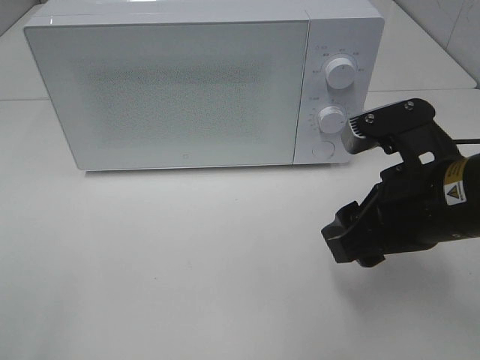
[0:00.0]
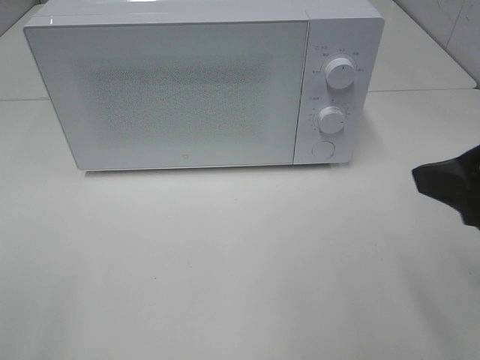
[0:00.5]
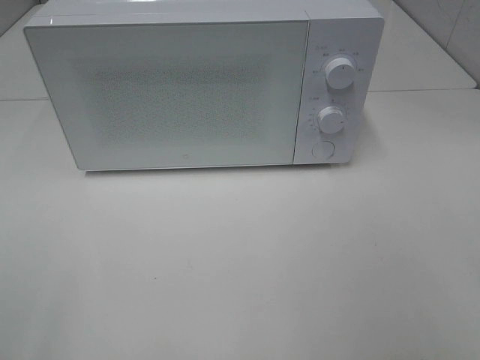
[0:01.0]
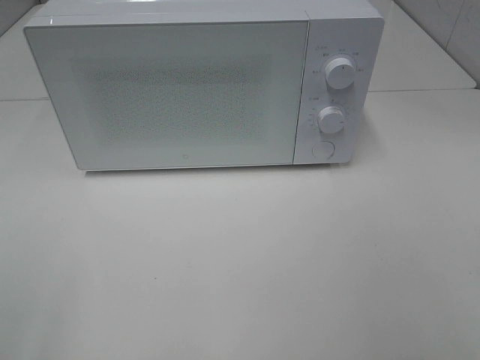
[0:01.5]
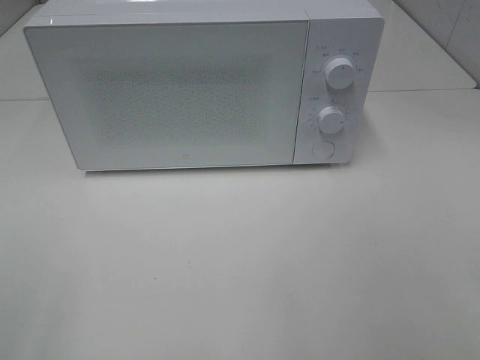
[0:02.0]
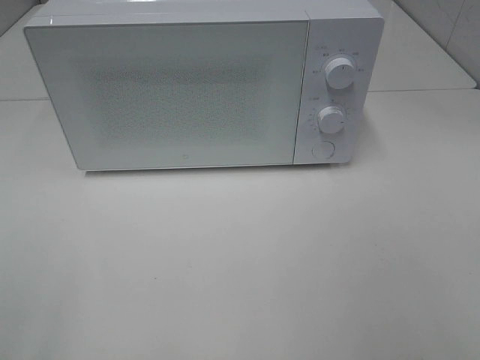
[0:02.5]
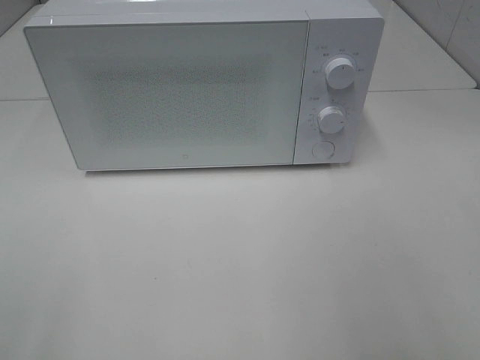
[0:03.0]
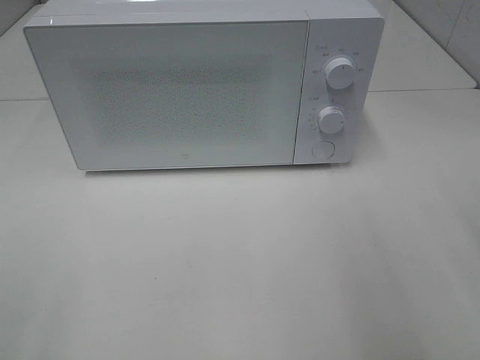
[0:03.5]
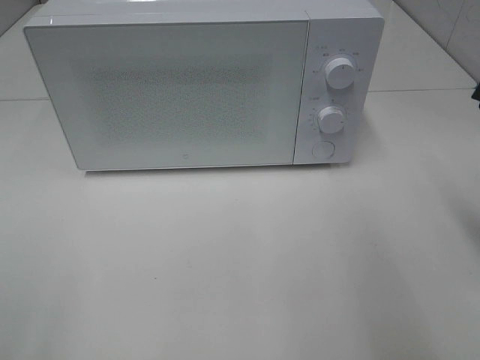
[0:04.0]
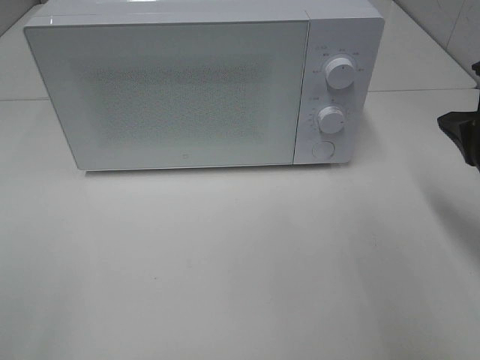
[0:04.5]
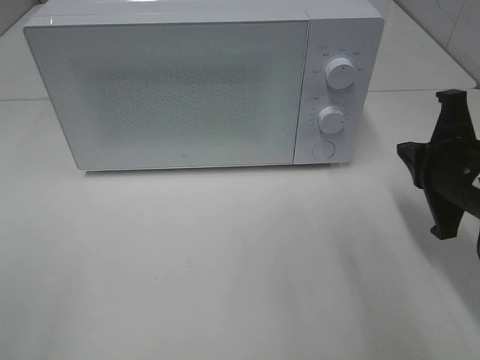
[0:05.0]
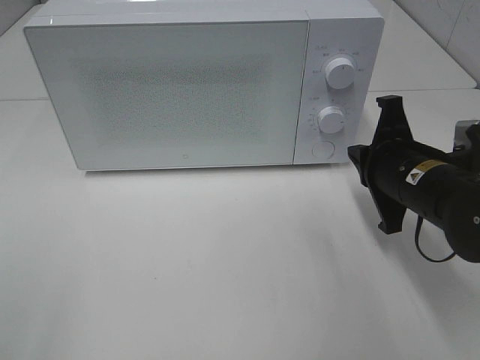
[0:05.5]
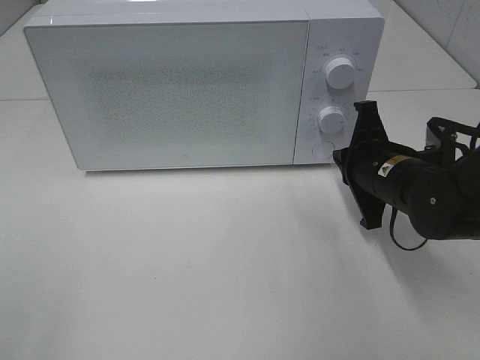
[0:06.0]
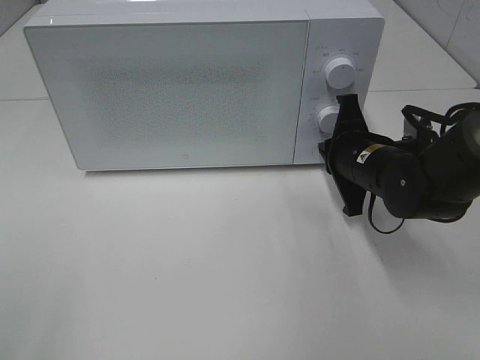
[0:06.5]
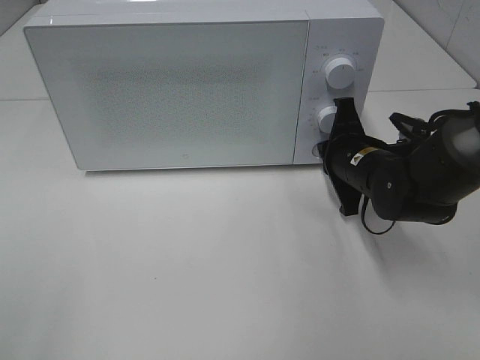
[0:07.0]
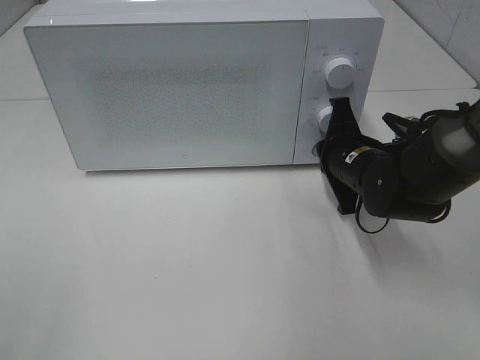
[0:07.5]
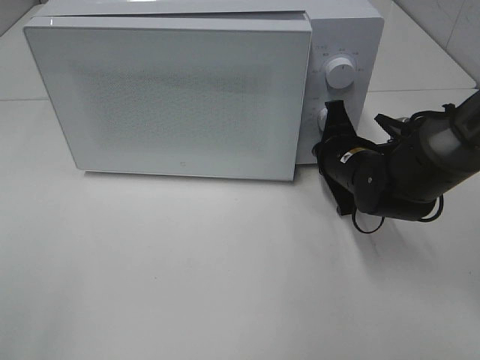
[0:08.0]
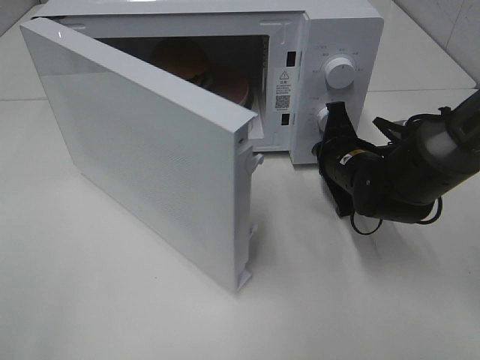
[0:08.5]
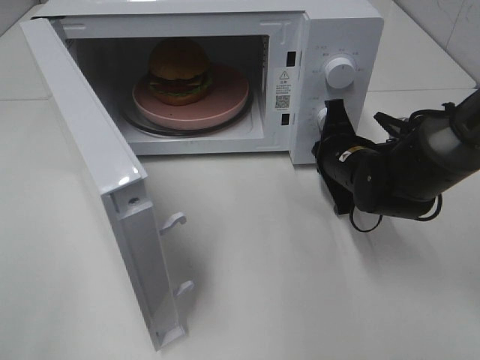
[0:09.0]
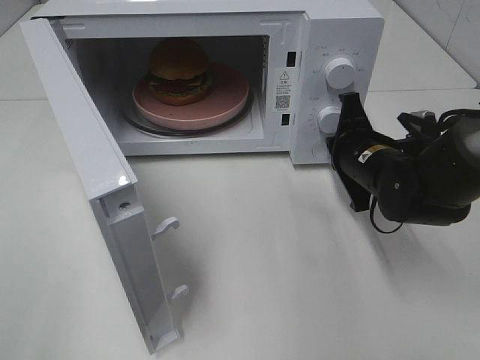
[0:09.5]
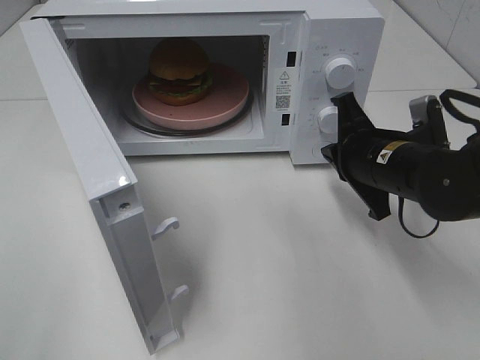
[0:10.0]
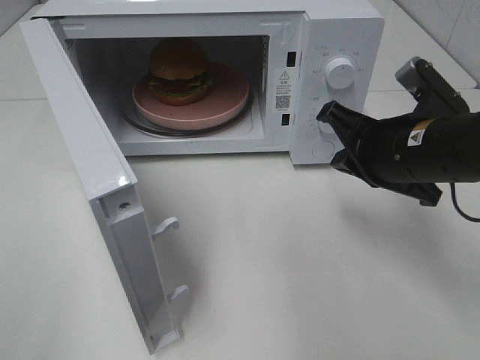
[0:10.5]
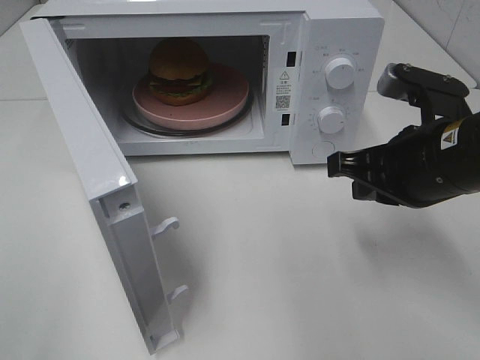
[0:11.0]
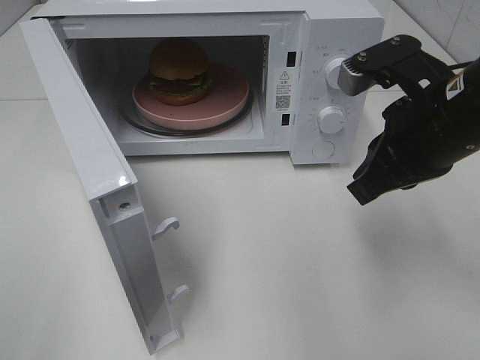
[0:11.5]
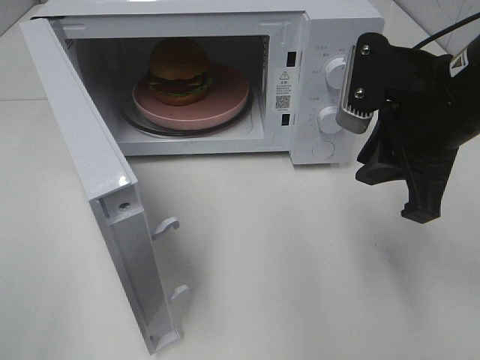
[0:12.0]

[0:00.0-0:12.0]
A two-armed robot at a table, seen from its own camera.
Task of the whole recording: Heat the burger.
Step, 0:00.0 to 0:09.5: Right hand: press the switch.
0:00.0 to 0:02.0: The right gripper goes some 25 cm backward, to the right and upward.
0:04.0 to 0:06.0: The right gripper travels downward, forward and to the left by about 20 cm.
0:06.0 to 0:08.0: The right gripper moves forward, about 5 cm.
0:08.0 to 0:10.0: The right gripper shifts about 10 cm backward and upward.
0:10.0 to 0:12.0: The right gripper is displaced upward by some 10 cm.

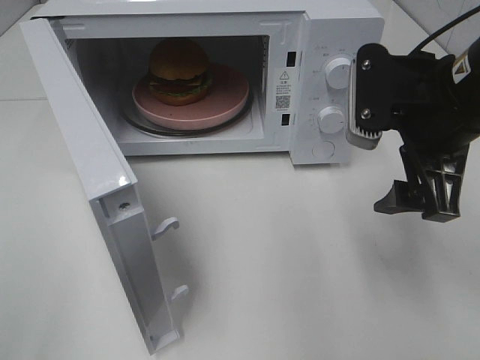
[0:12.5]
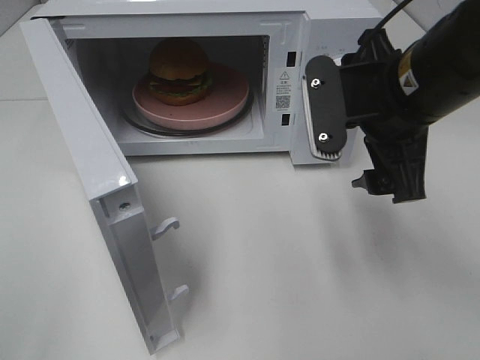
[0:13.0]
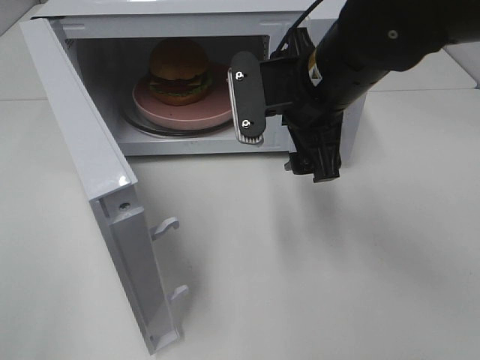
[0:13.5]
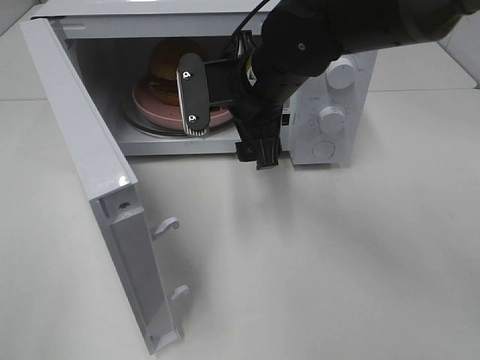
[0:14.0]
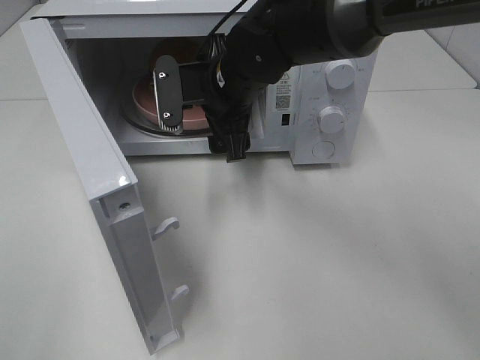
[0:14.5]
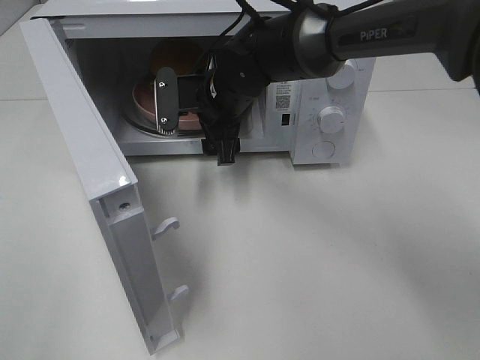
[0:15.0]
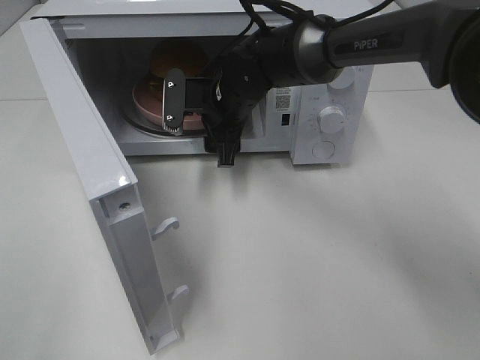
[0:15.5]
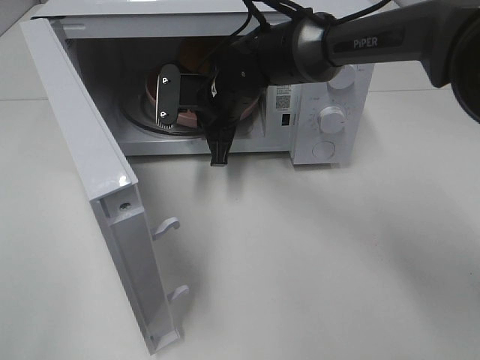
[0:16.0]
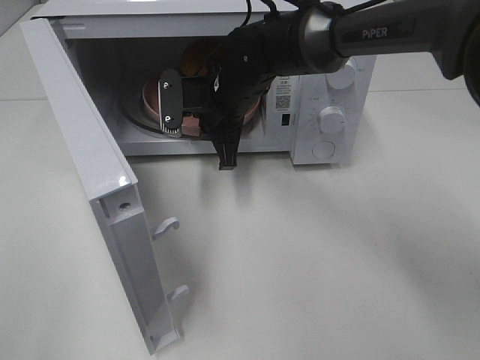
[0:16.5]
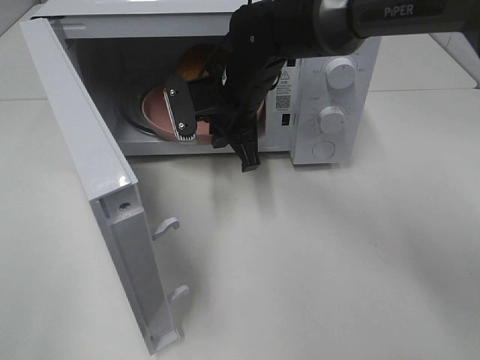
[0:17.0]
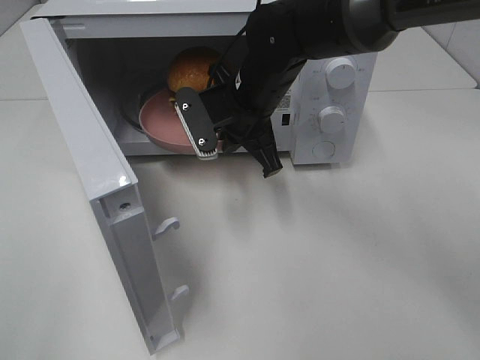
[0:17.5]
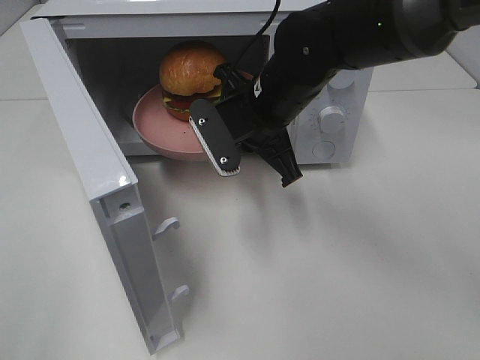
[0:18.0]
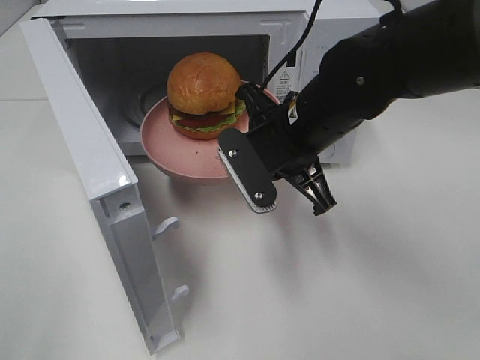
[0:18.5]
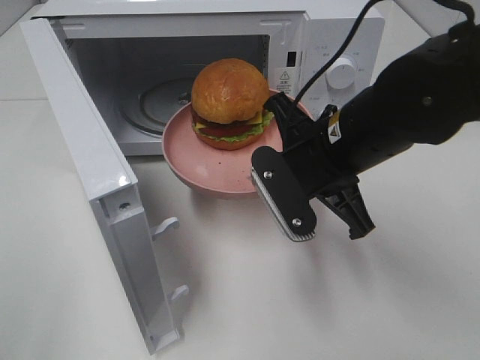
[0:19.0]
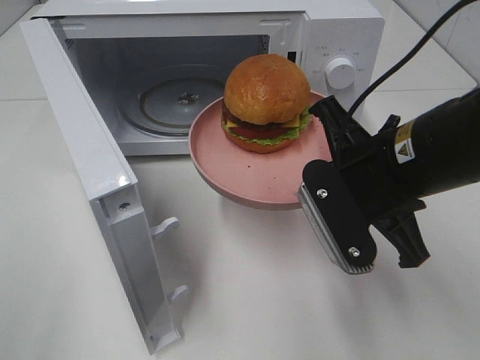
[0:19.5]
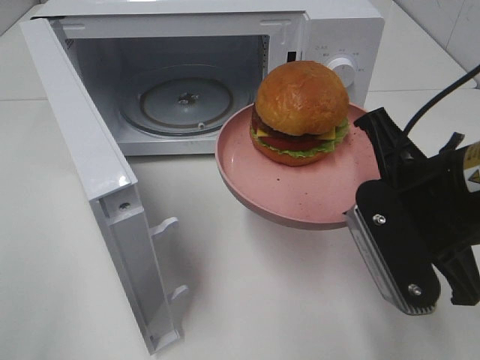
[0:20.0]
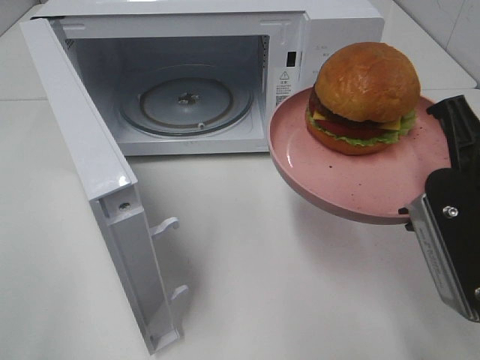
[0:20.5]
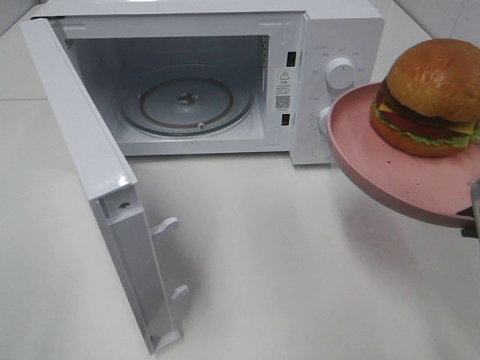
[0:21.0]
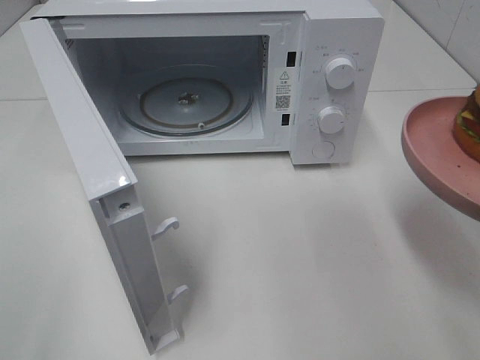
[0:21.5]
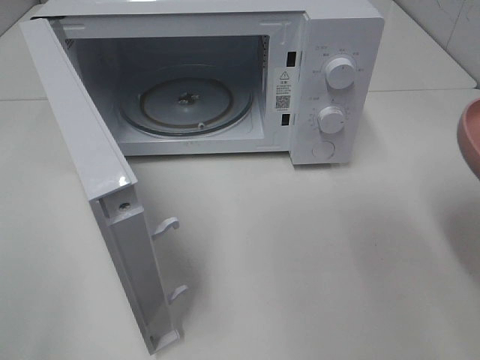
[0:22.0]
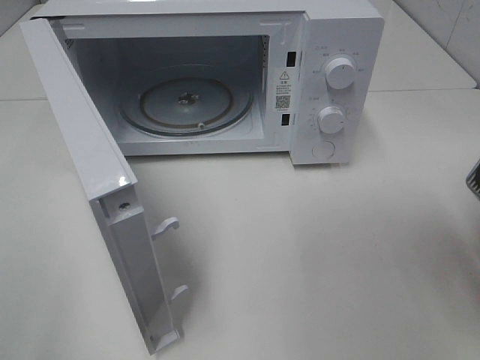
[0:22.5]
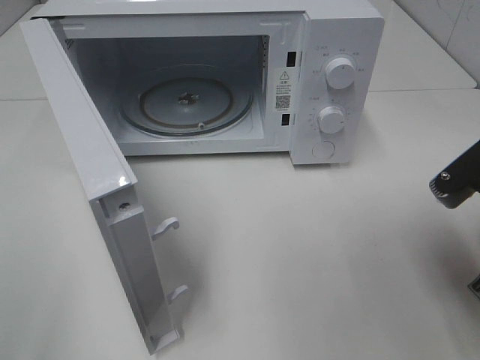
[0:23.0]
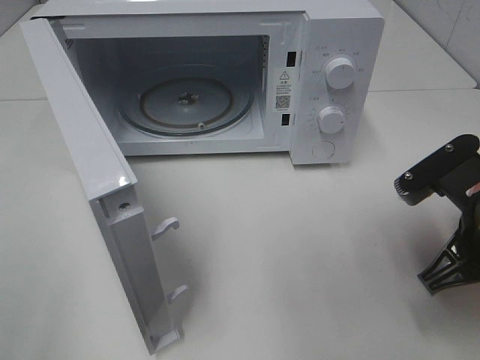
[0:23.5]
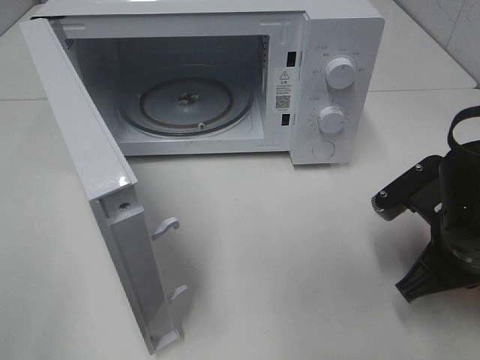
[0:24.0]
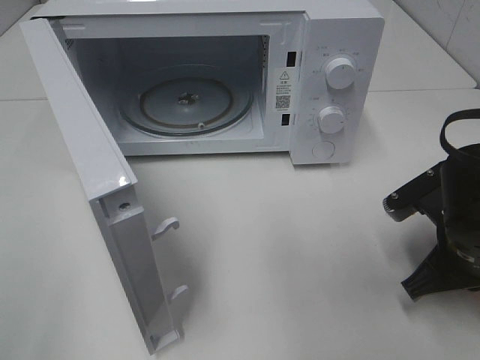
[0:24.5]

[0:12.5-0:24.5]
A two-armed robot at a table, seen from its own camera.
Task of the whole recording: Heat the burger.
Step, 0:12.5 to 0:16.0: Right hand: grab the plate with the hamburger.
0:12.5 to 0:14.5: The right gripper is displaced to the left and forward by roughly 20 cm.
0:14.5 to 0:16.5: The right gripper moves roughly 5 cm, and closes.
0:16.5 to 0:18.5: The right gripper travels backward and to the right by about 15 cm.
0:18.5 to 0:20.5: The right gripper heads backward, to the right and upward, covering approximately 20 cm.
0:22.5 to 0:24.5: The right gripper is displaced downward and forward by about 15 cm.

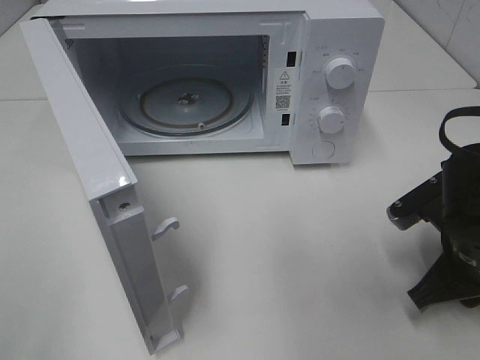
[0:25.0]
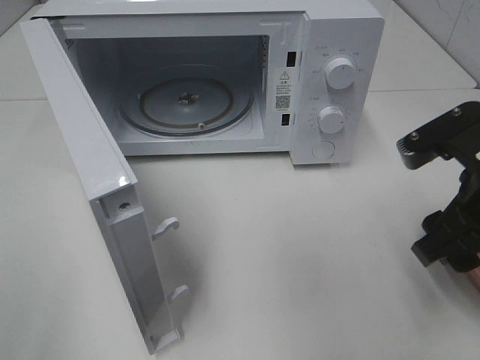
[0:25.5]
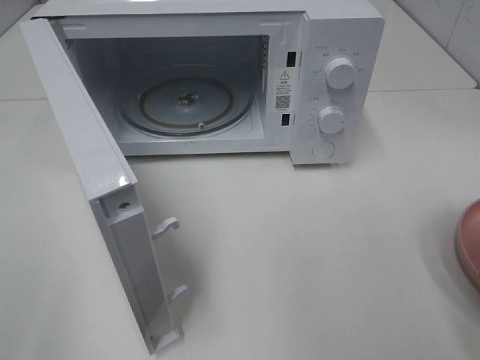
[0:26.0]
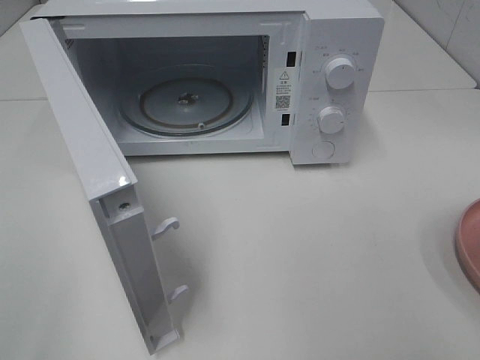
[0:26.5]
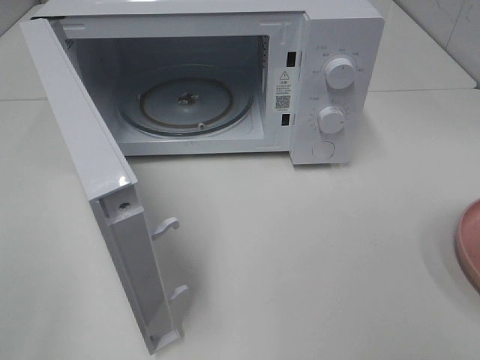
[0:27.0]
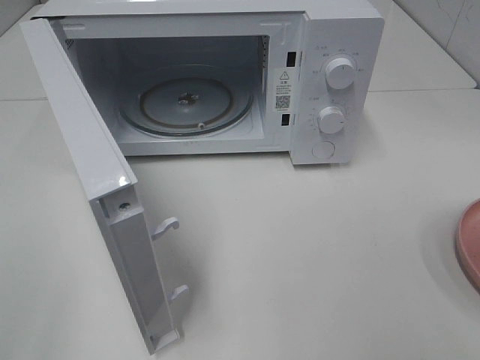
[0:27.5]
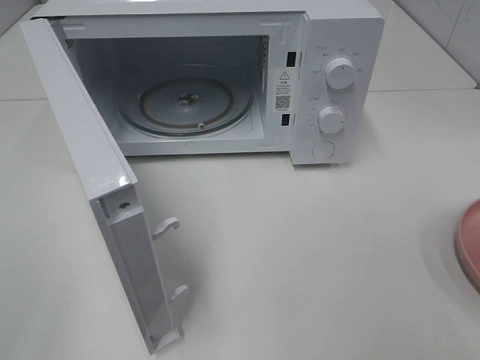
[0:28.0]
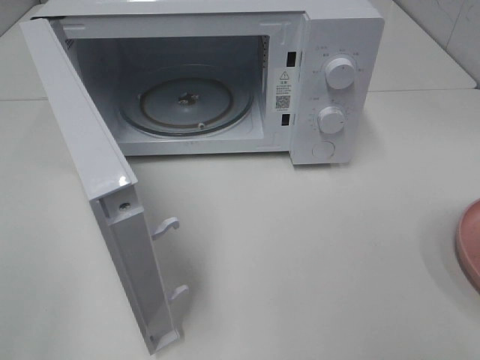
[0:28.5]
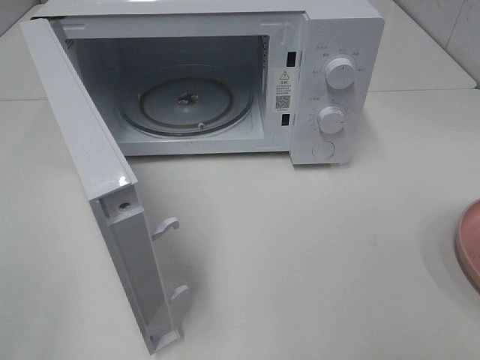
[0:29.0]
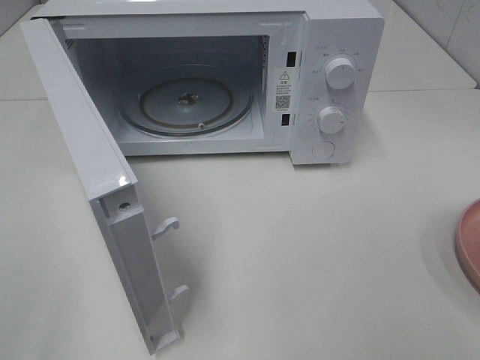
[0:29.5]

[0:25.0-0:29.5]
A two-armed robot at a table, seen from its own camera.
Task of the whole recording: Heat the burger.
0:25.0 to 0:27.0: The right gripper shifts approximately 25 cm upward and backward, and opens.
